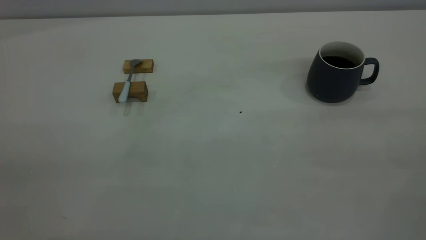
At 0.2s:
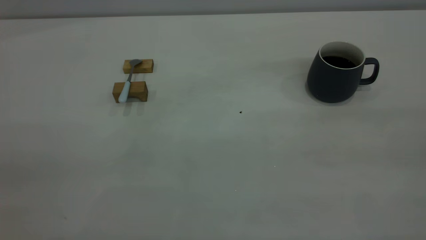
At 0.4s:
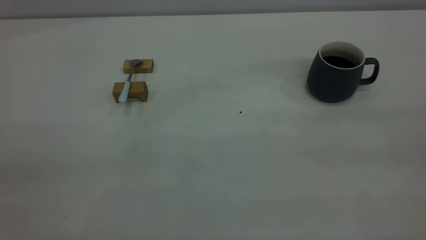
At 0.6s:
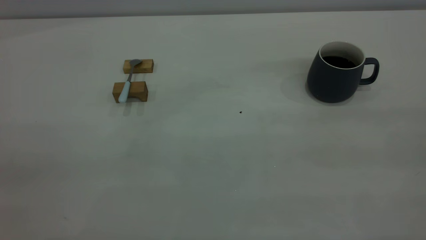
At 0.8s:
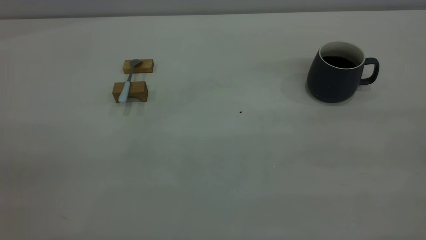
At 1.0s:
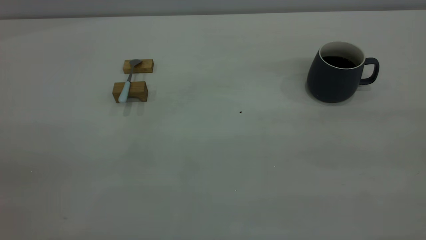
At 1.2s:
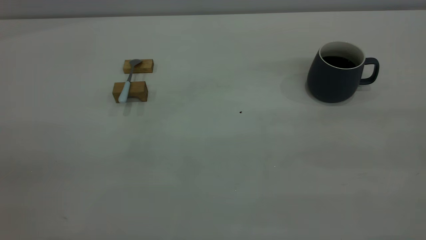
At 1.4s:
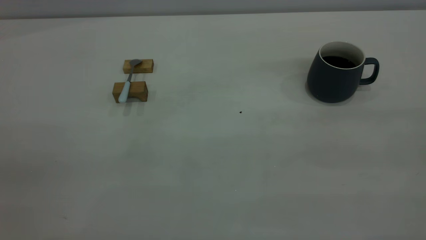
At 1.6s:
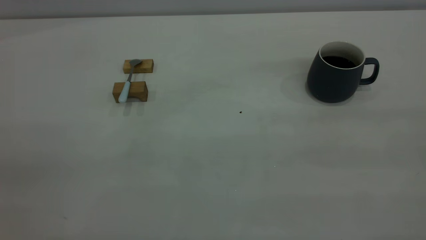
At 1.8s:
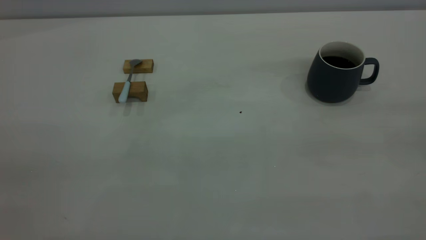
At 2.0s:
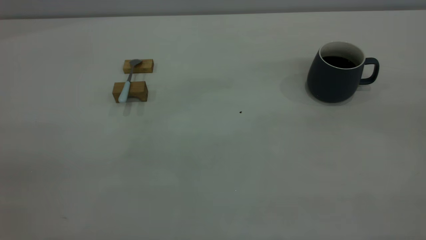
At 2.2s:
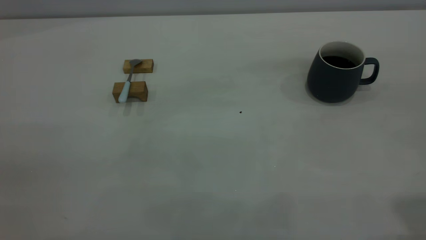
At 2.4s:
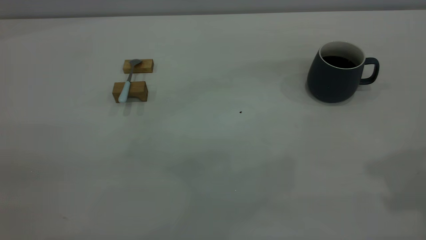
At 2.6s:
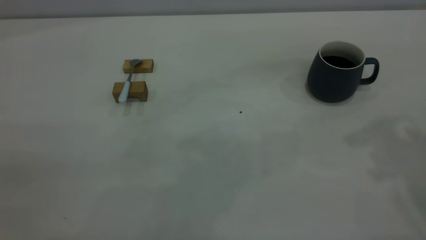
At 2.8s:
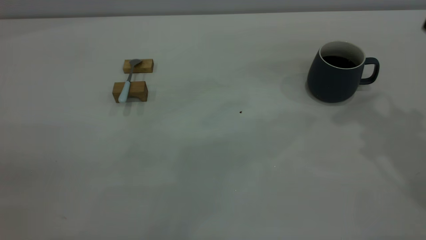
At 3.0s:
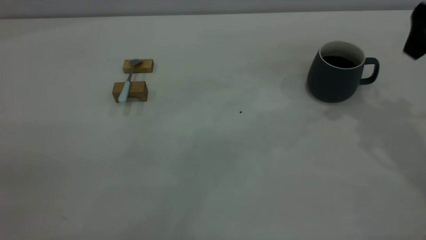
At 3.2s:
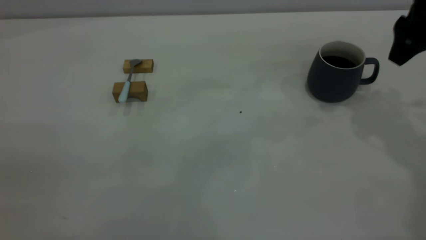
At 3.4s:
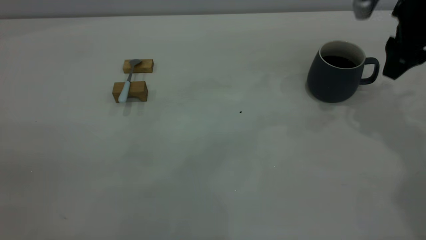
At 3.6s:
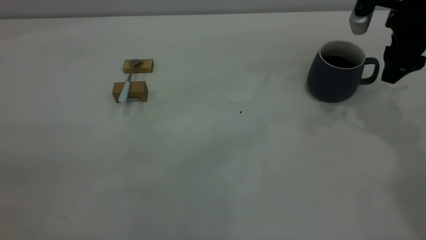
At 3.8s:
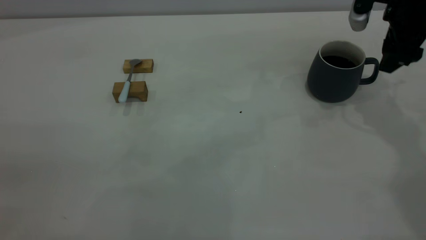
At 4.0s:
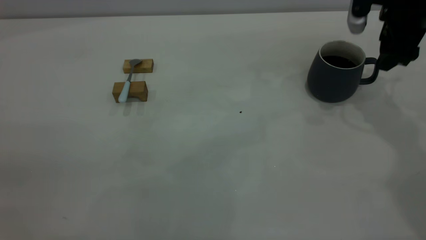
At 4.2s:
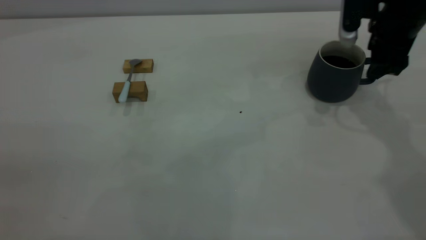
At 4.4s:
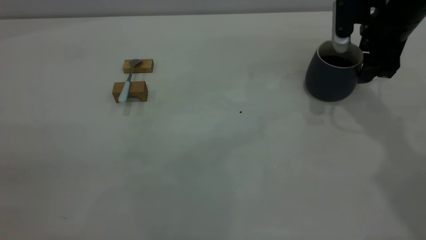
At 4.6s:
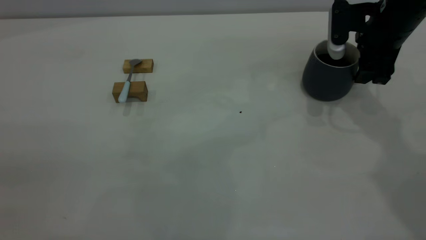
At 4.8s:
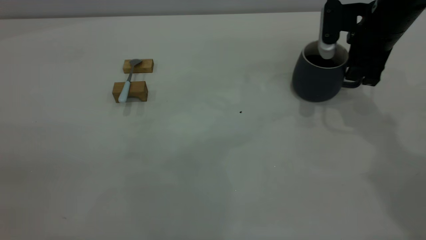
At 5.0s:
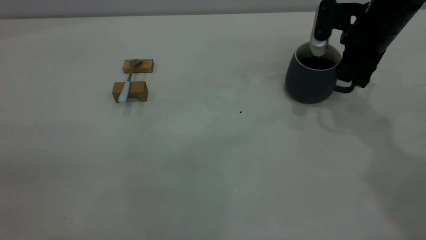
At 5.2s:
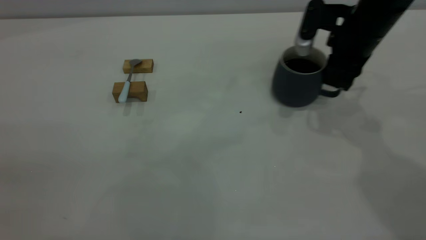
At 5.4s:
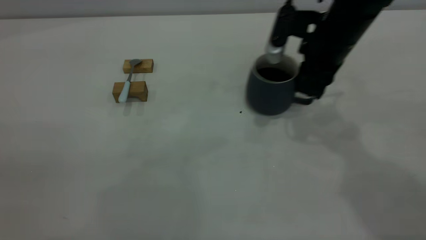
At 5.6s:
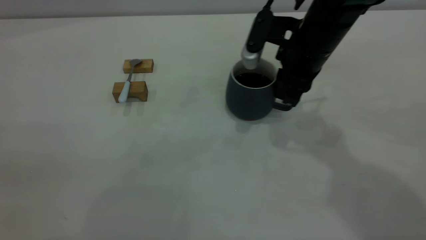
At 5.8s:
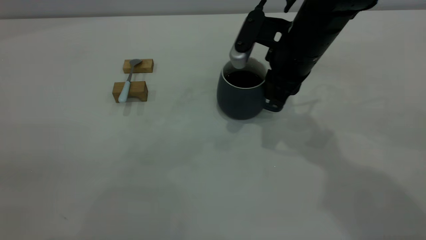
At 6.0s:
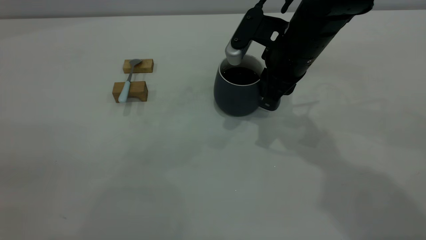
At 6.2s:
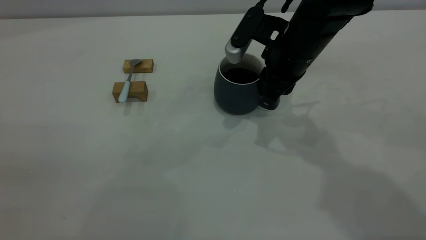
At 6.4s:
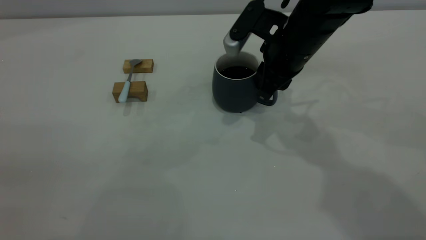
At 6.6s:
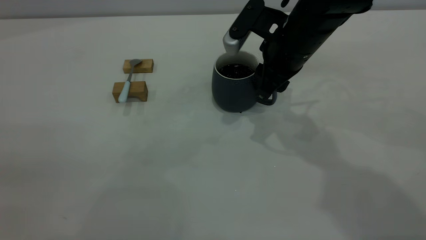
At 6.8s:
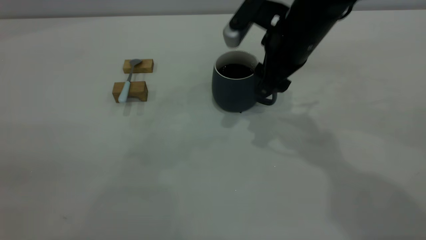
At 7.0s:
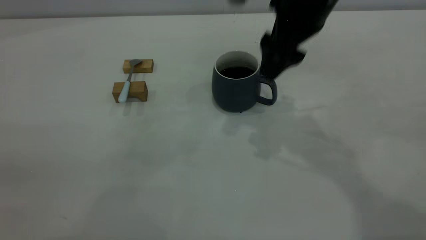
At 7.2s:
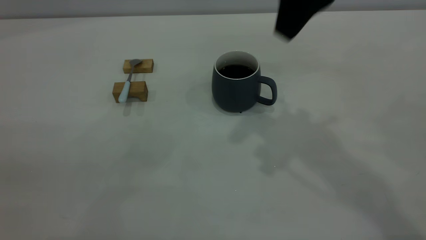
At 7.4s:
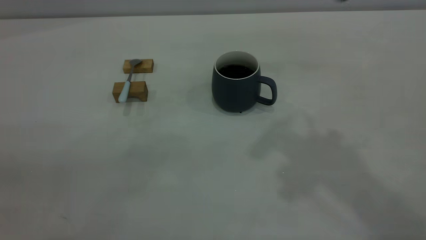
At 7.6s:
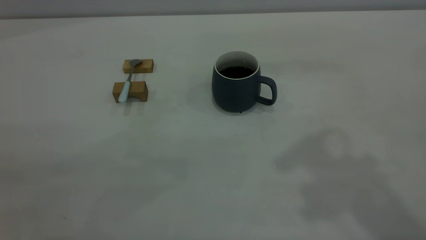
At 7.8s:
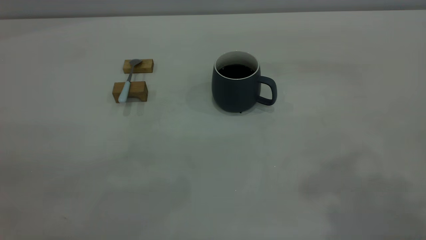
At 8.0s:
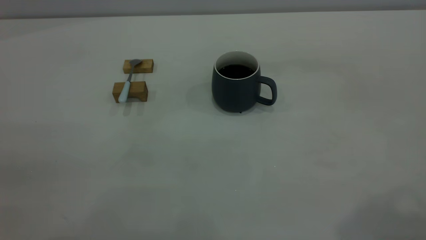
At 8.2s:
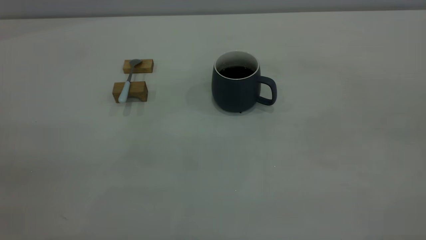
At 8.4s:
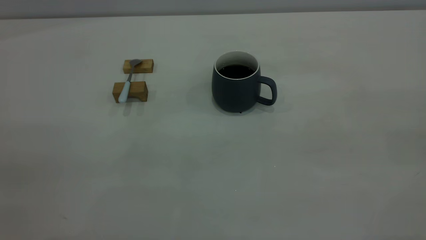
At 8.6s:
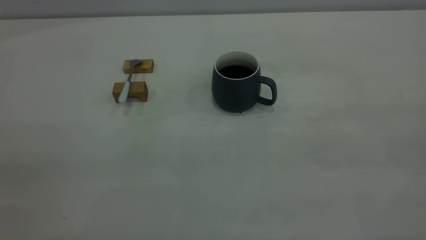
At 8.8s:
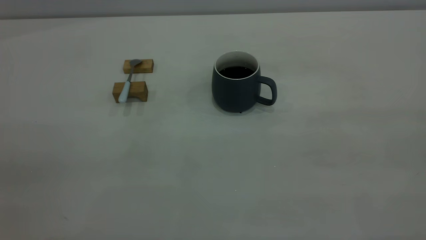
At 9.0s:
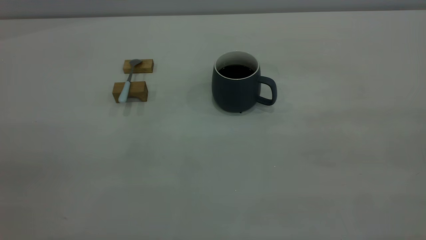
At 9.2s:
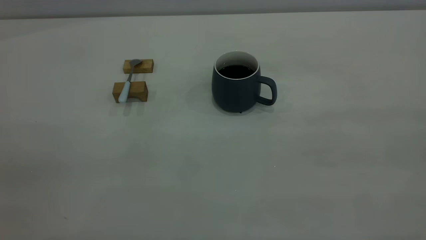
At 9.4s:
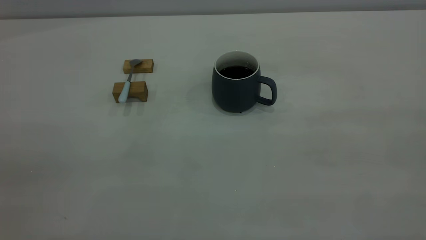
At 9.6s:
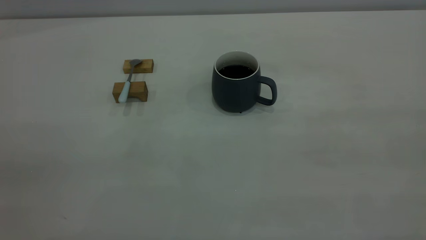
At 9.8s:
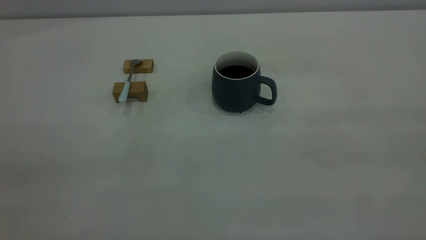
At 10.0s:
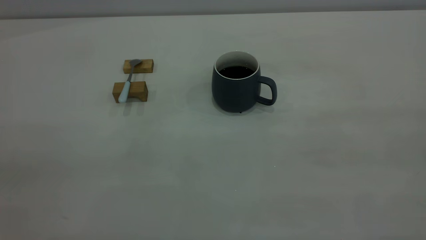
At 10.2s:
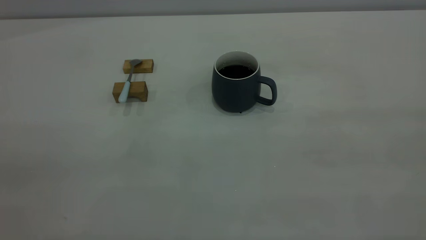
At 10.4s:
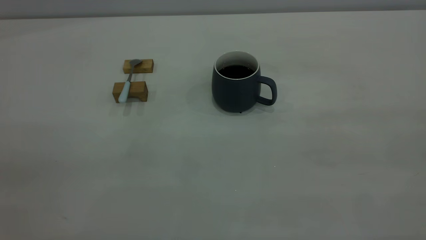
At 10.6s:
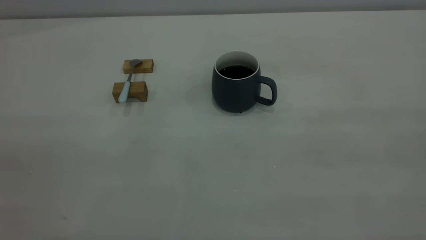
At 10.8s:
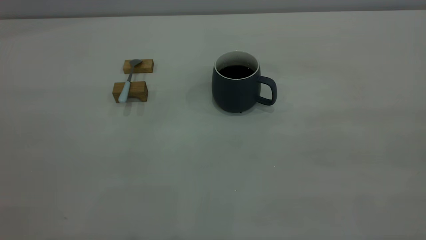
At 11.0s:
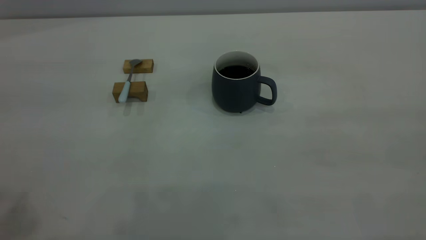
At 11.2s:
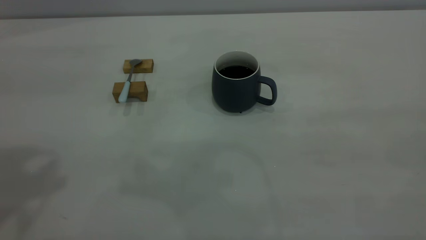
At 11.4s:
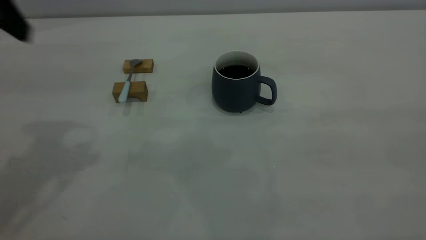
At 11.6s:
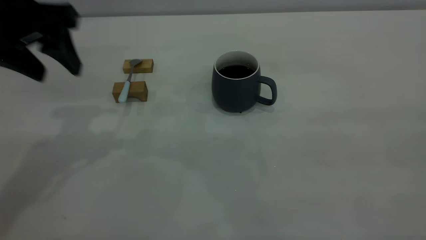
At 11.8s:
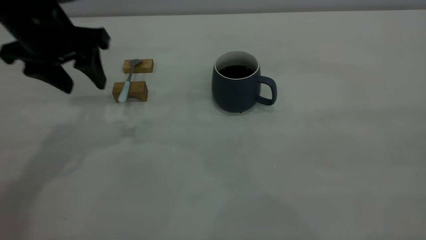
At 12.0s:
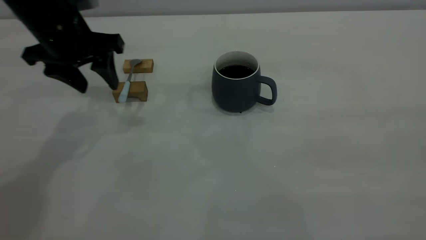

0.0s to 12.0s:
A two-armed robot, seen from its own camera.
Step, 0.0s to 7.0s: Move the cup with coffee to the center of view.
0.0s to 1.6s: Both grippers stay about where they are.
1.6s to 3.0s: The right gripper moves forward, roughly 35 cm, and opens its fingers.
3.0s to 4.4s: The right gripper moves downward and forward, some 10 cm.
4.4s to 6.0s: The right gripper moves to the left, roughly 15 cm, and closes its fingers.
6.0s to 7.6s: The right gripper travels upward and backward by roughly 35 cm, and opens up.
9.0s to 10.4s: Both grippers stay put.
10.4s to 12.0s: The left gripper heads forward and downward, covering approximately 40 cm, and opens its fingers.

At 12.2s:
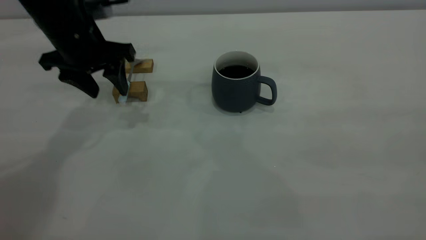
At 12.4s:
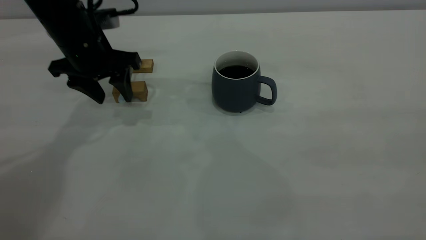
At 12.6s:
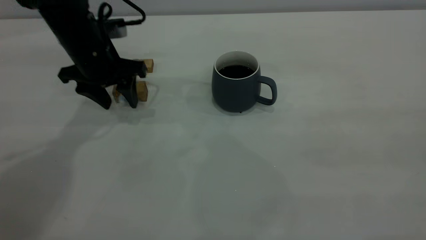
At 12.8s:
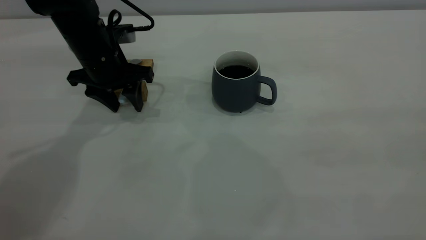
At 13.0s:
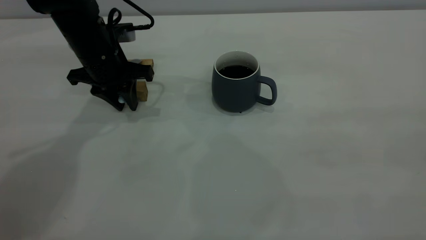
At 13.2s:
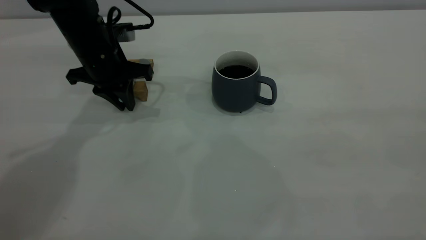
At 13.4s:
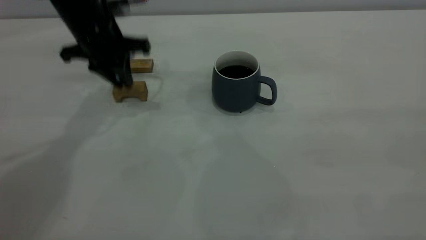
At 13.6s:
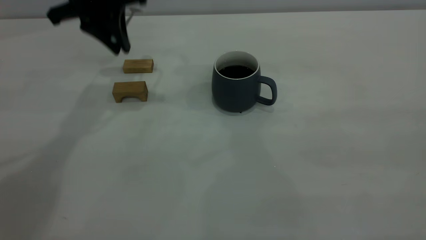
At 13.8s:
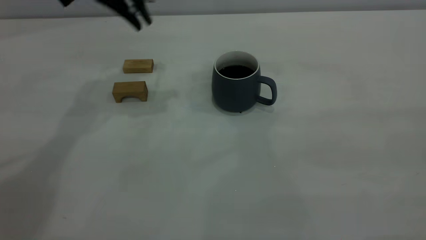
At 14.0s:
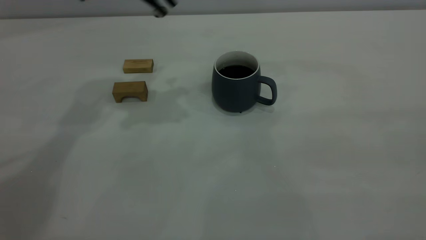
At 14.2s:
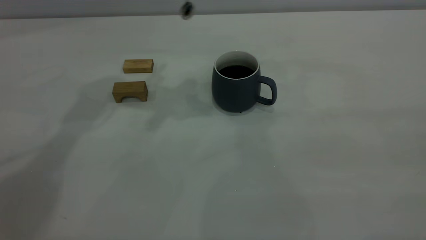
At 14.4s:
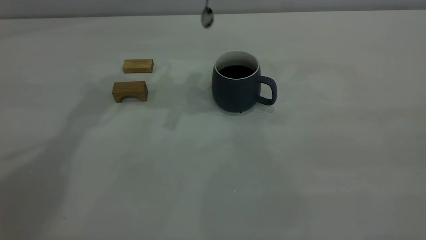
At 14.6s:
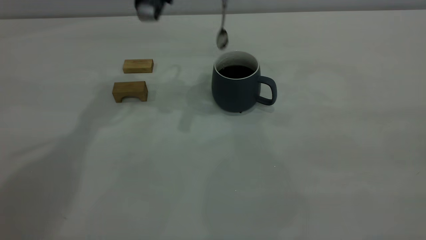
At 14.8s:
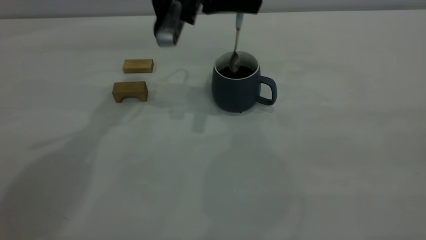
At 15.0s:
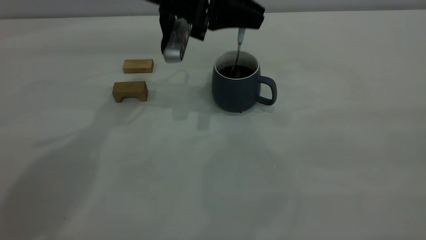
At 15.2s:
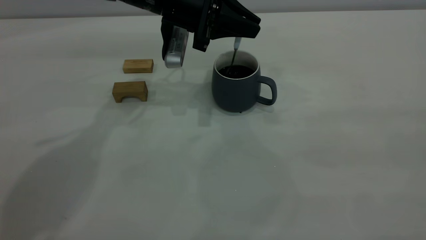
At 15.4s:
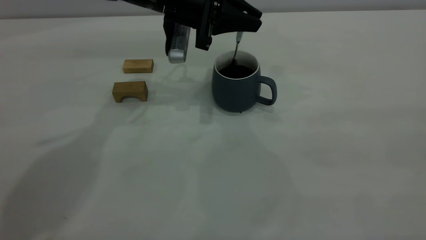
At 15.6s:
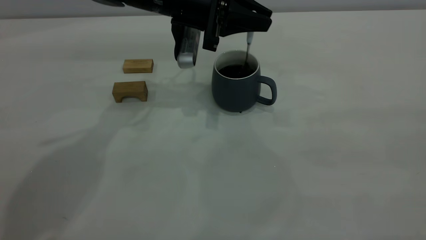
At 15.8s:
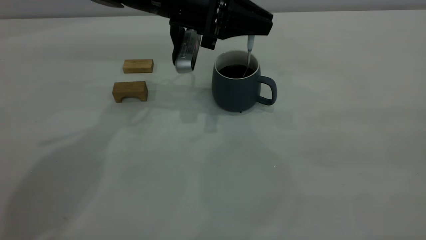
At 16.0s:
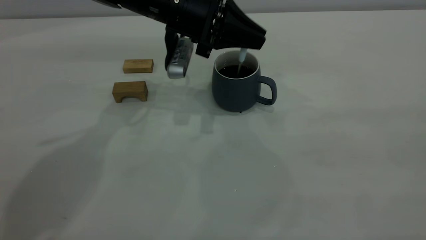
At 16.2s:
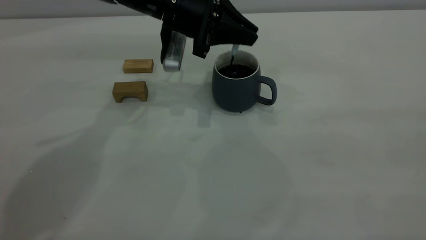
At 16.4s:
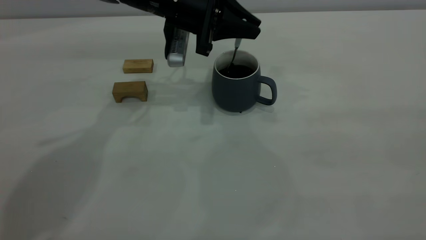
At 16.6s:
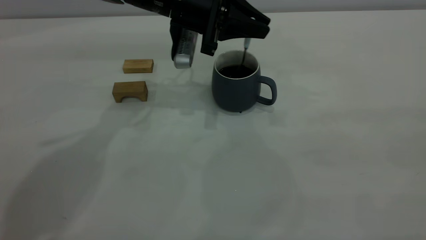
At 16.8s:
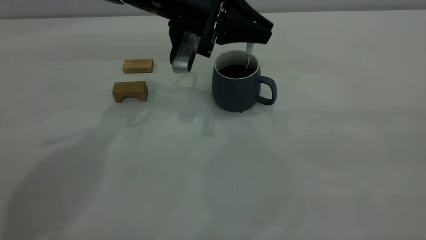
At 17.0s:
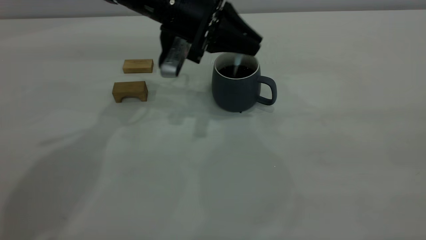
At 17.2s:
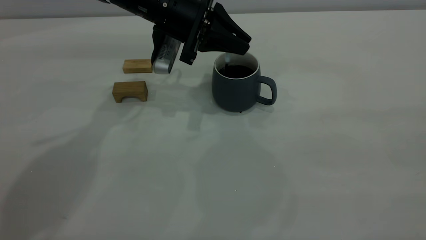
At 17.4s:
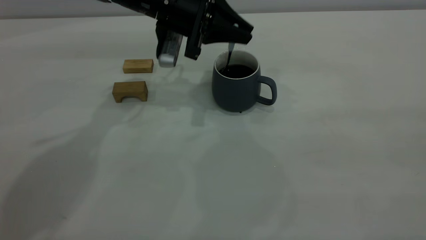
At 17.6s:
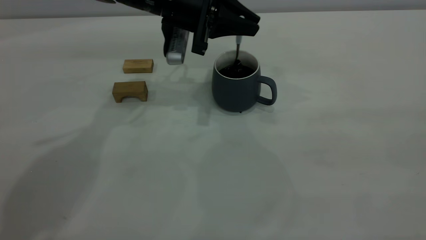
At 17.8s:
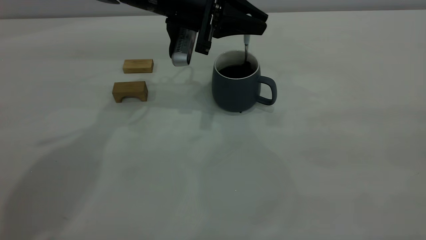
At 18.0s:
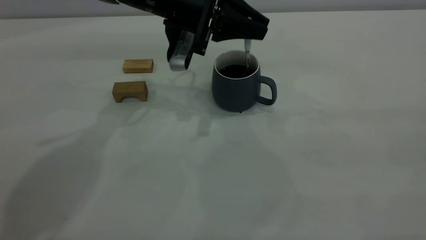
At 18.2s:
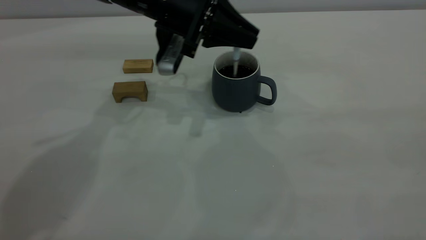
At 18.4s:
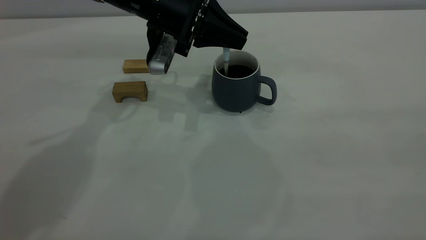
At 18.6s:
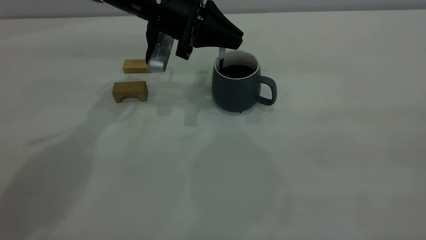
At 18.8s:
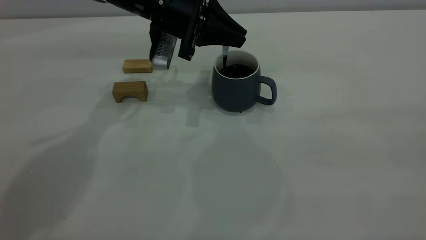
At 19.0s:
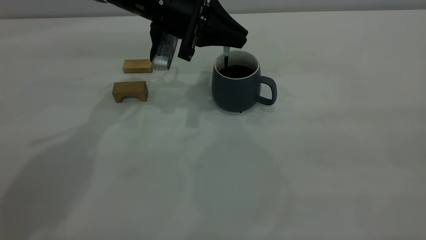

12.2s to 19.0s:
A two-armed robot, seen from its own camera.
12.2s to 13.6s: The left gripper heads upward, covering roughly 10 cm, and closes.
13.6s to 15.0s: The left gripper moves to the right and downward, about 10 cm.
15.0s to 19.0s: The grippers stay close to where they were, moving slightly.
